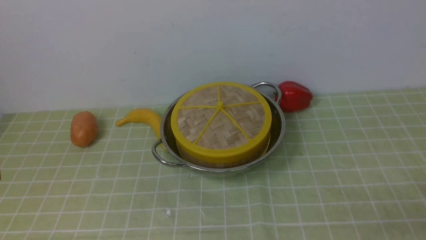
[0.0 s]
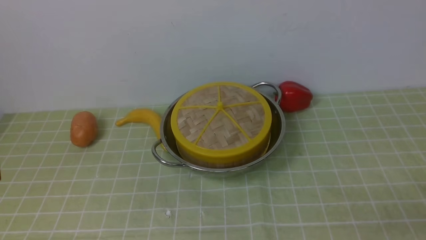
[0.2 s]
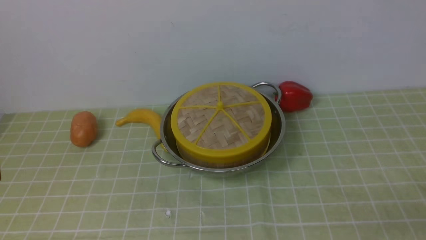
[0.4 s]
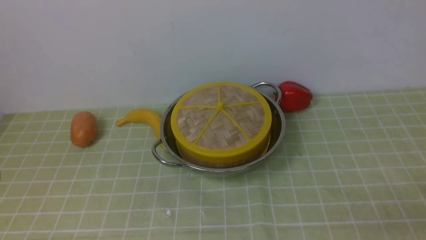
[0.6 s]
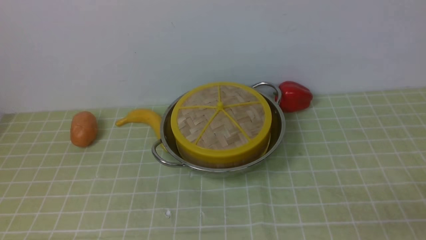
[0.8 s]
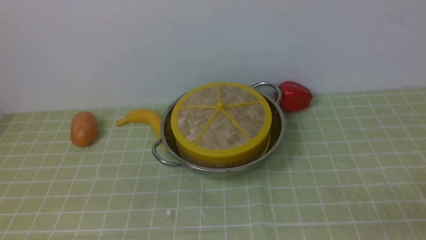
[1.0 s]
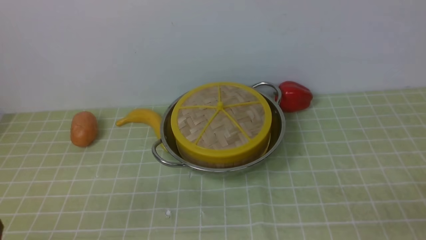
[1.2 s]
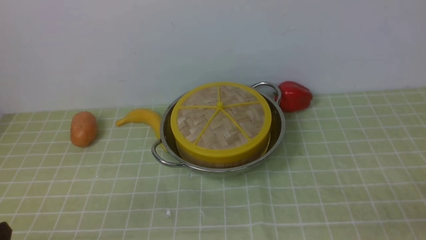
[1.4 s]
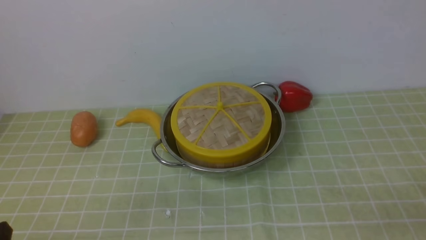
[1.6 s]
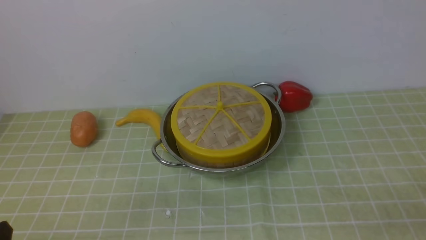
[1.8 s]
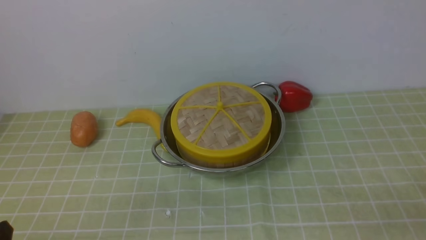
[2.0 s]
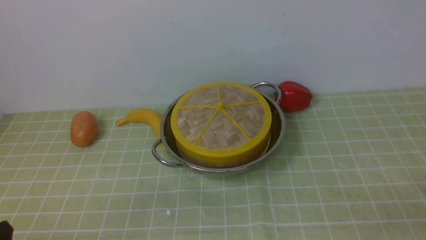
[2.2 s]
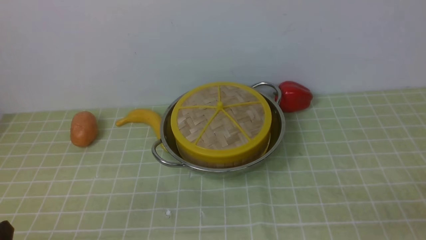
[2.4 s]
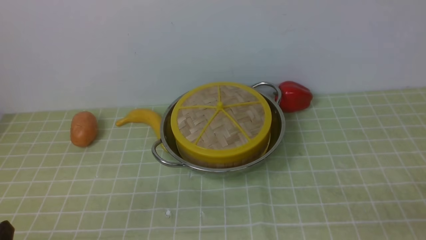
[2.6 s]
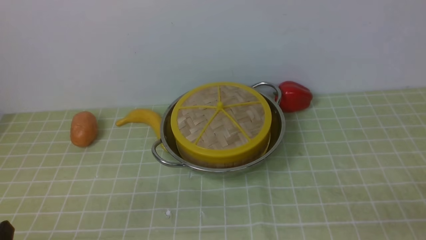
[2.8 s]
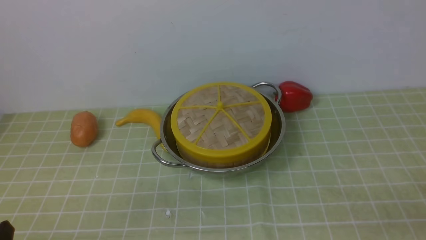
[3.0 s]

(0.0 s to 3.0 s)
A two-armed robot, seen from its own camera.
Task of the whole recording: place the steamer in the pot on the green tablecloth, and put the lid on the steamer.
1.6 s - 3.0 s: Both grippers stay about where they are.

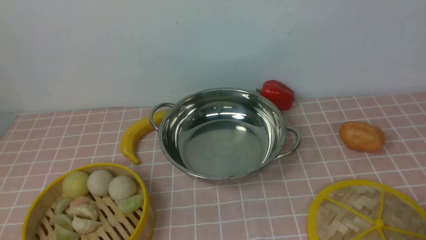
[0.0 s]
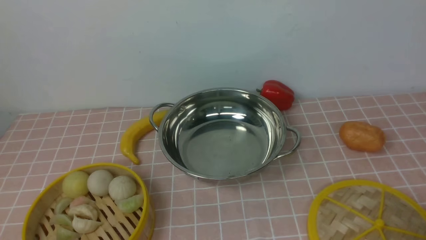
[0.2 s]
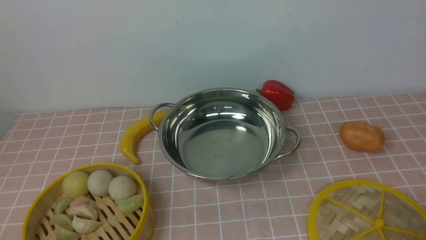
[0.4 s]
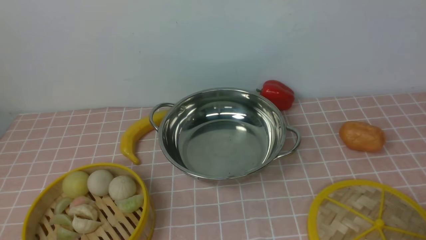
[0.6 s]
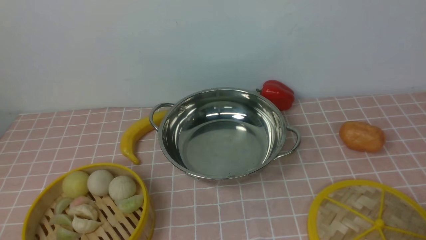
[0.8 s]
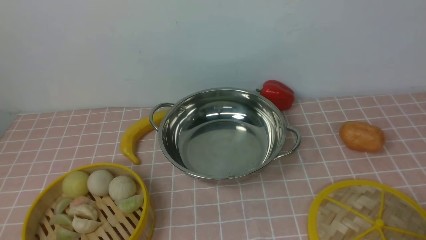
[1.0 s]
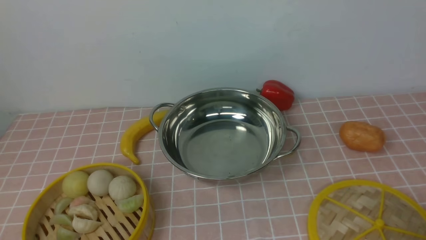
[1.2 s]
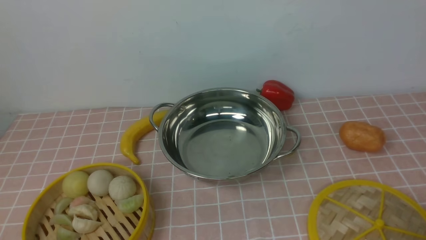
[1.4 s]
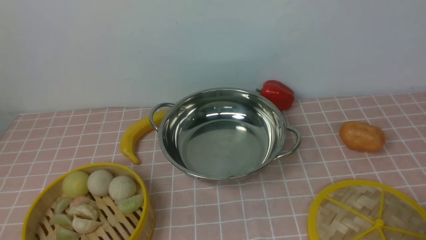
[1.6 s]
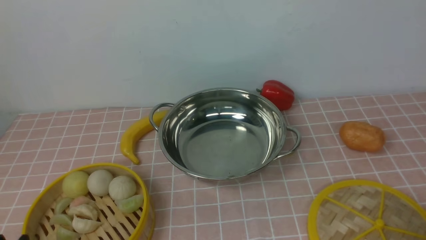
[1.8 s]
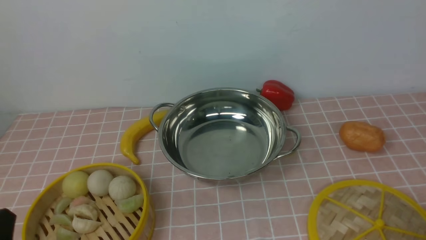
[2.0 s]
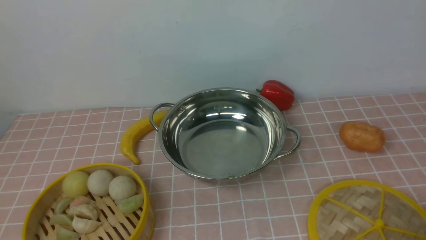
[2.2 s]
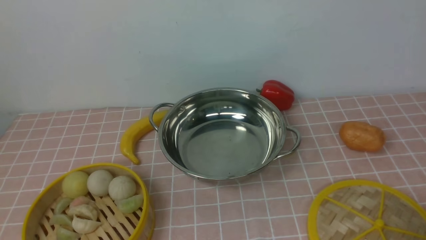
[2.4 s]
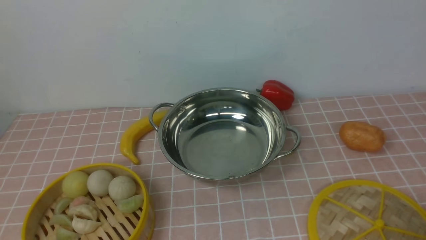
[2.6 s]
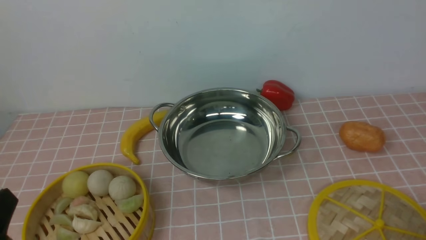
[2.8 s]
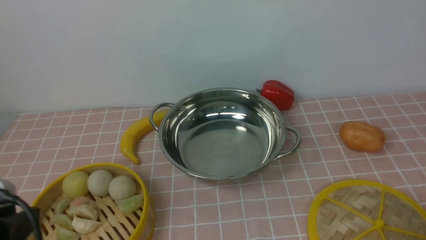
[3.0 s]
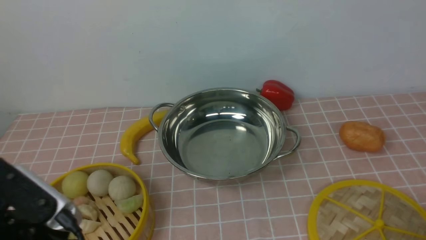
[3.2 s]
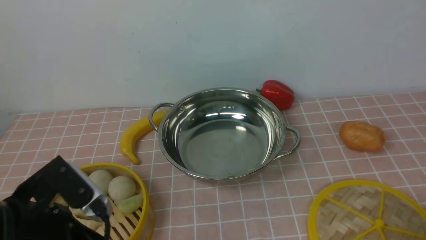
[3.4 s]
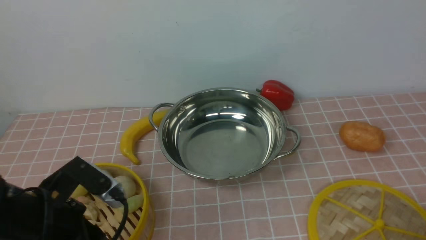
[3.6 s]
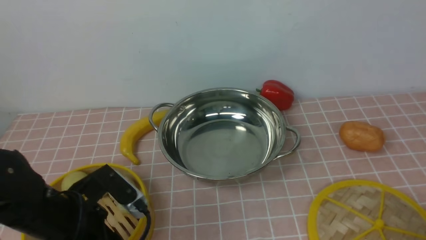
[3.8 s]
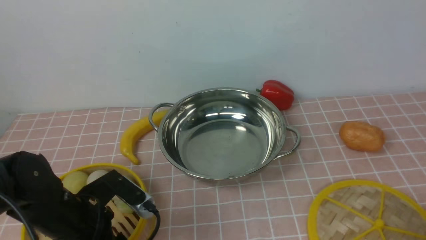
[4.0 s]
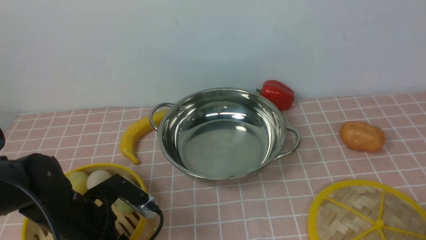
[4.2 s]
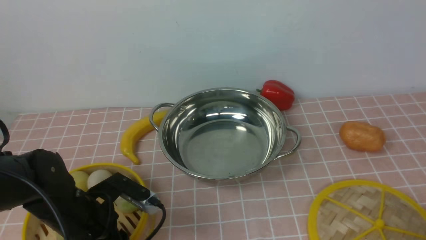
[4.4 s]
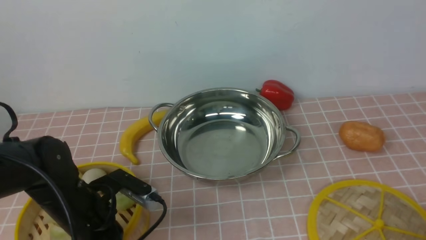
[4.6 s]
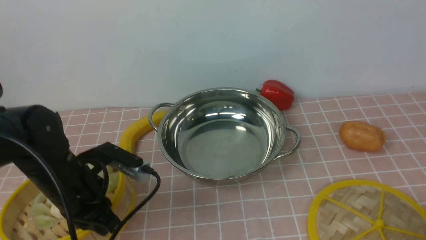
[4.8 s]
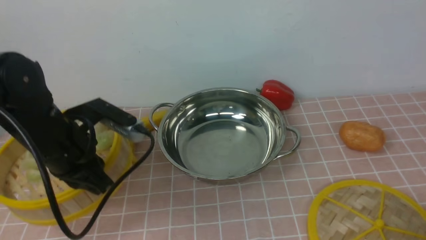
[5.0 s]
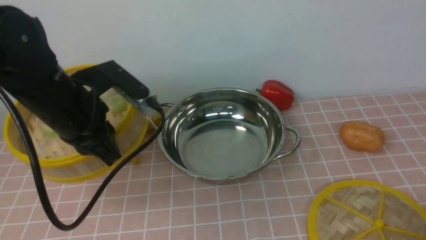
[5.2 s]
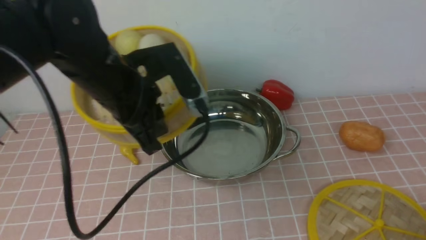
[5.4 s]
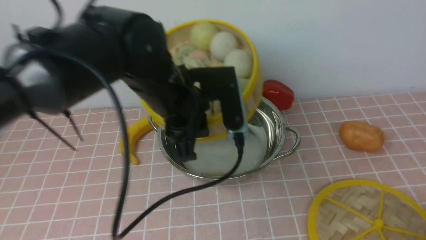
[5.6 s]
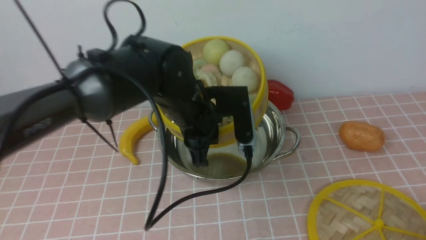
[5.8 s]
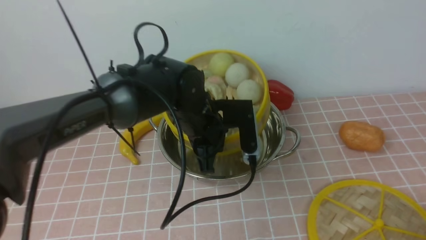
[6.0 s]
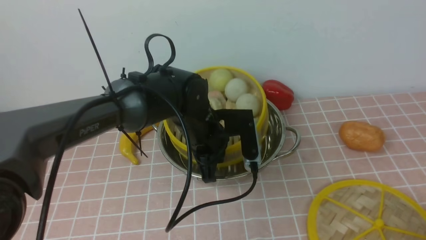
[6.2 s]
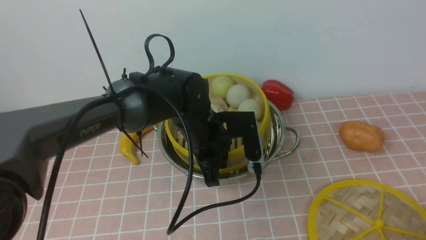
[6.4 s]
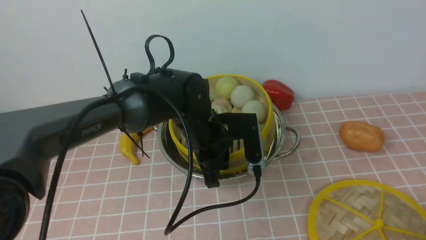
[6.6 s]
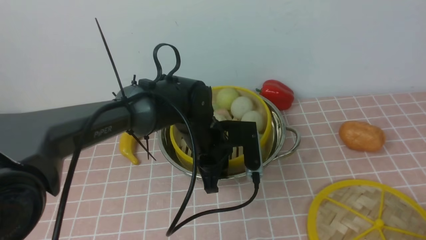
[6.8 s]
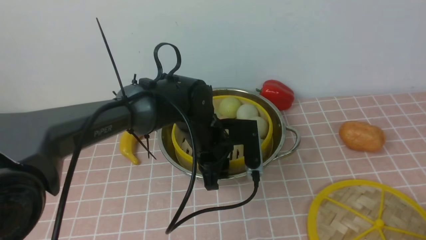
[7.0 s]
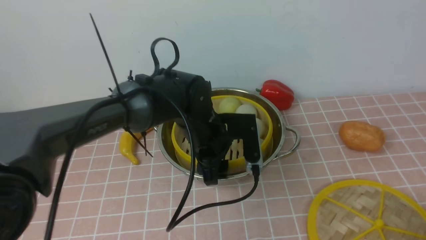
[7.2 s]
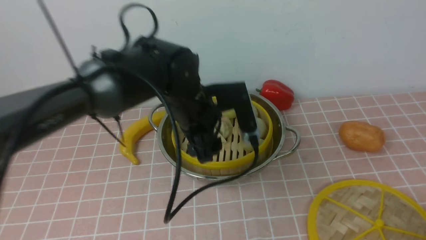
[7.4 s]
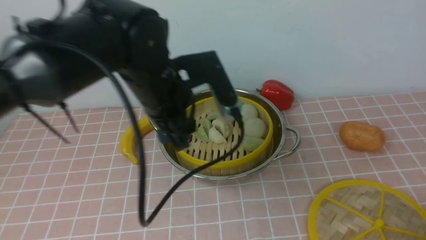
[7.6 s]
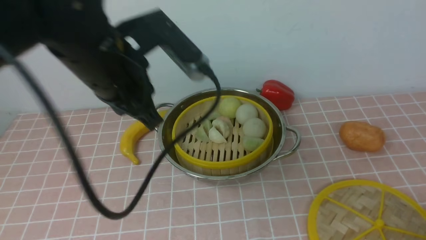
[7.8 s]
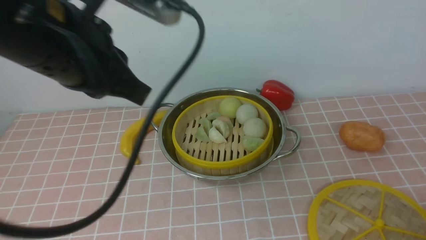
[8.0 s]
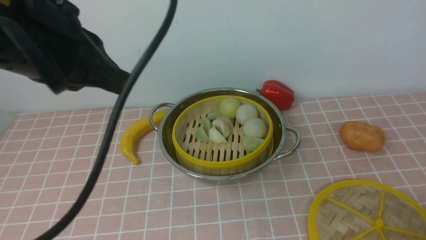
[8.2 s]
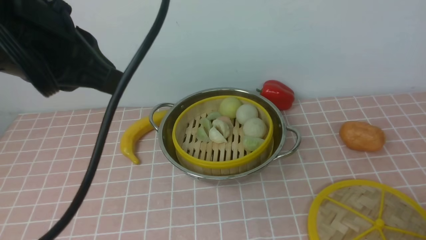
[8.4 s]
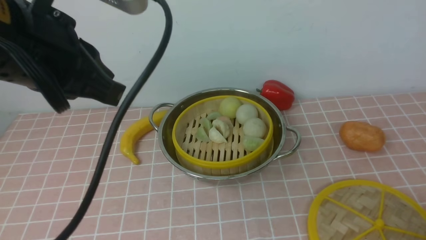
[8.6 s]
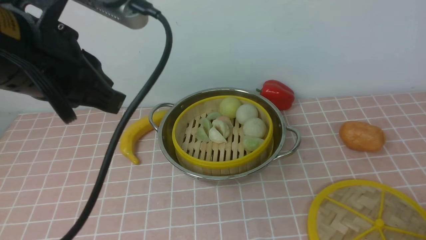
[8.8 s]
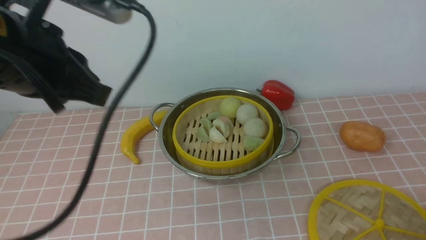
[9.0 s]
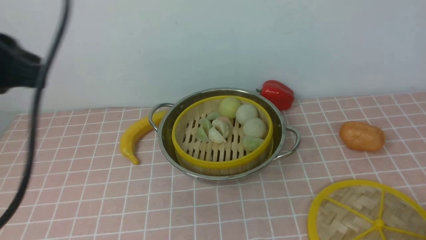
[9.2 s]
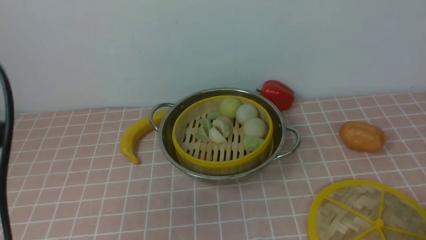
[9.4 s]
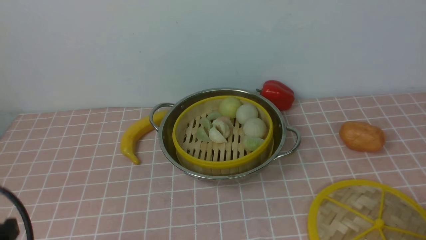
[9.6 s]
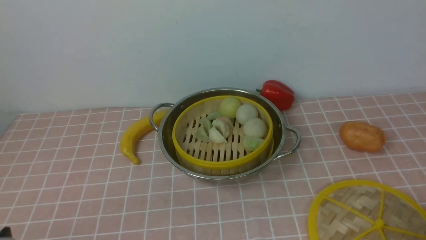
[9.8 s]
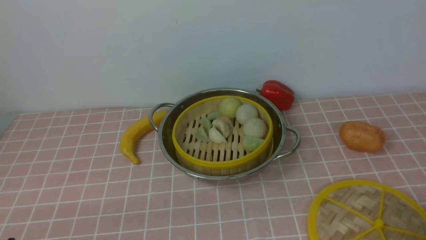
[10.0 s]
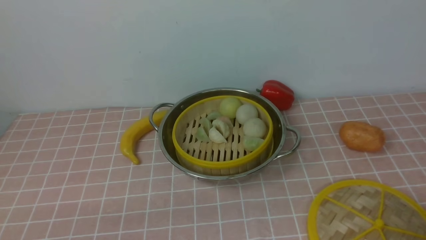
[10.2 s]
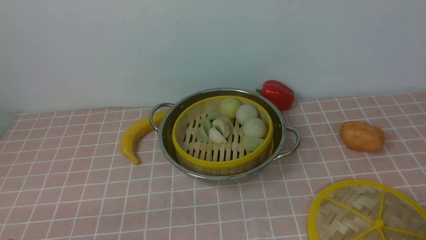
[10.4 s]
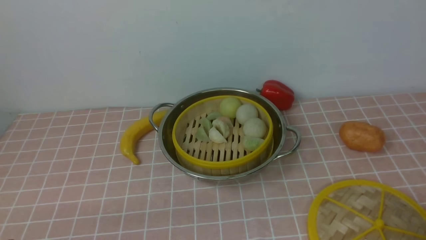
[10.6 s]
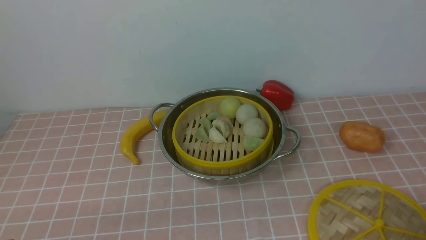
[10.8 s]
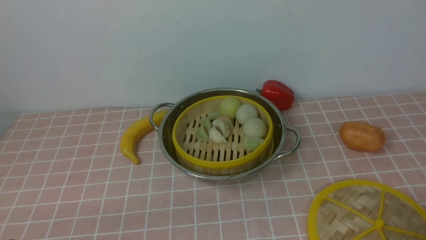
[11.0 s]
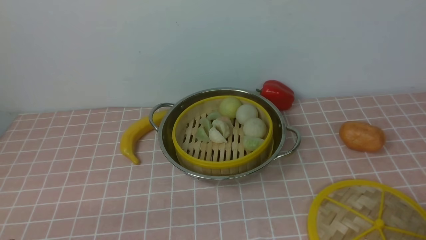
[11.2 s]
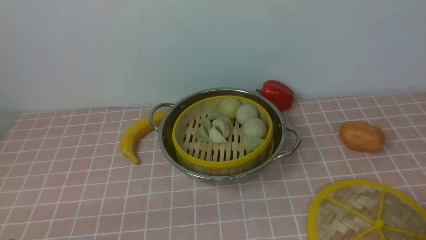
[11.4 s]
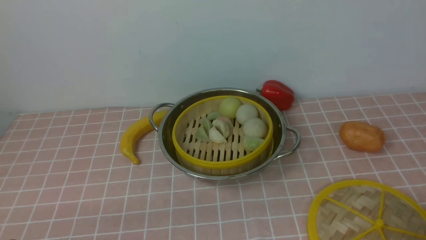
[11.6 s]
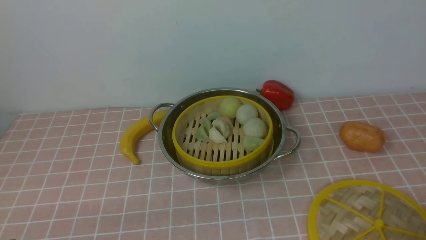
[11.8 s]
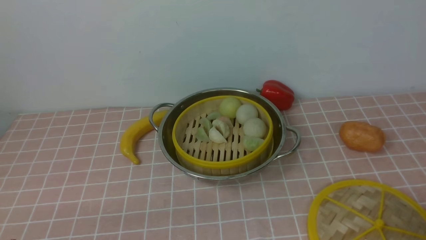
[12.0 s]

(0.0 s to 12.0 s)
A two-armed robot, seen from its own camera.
Task of the whole recording: place the steamer in the pot on the pink tablecloth, and put the lid on the steamer.
Step, 0.0 s - 4.6 s: use the left arm to lift the steamer closest to it.
Step, 4.8 s - 7.2 s: use the left arm to put the steamer into the iron steamer pot in the middle.
0.0 s - 1.6 s: The two grippers keep their place.
1.6 s - 3.0 s: The left gripper moves upward, about 10 cm.
3.0 s - 4.4 s: The left gripper is displaced forward and downward by approximately 20 cm, and opens, then closes again.
4.4 s - 6.0 s: The left gripper goes roughly 20 cm to the right and forward, and closes its fingers.
6.0 s - 7.6 s: The left gripper shifts approximately 10 cm upward, and opens up.
7.6 s - 9.0 s: The left gripper moves to the left, backward and upward, about 20 cm, and closes its fingers.
9.0 s - 10.4 s: The left gripper is displaced downward and backward by some 30 cm.

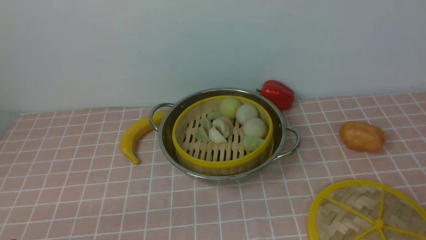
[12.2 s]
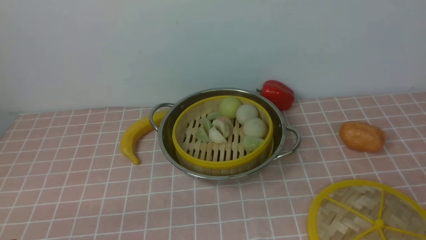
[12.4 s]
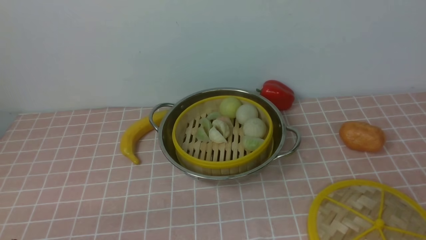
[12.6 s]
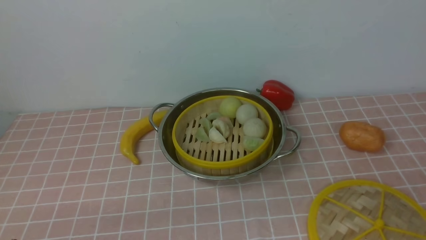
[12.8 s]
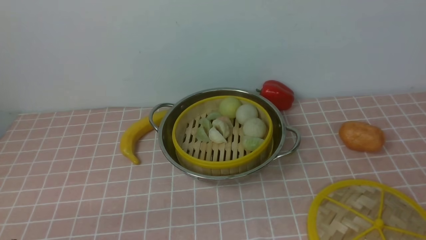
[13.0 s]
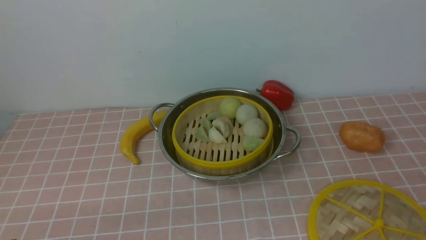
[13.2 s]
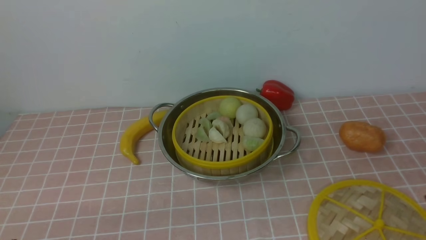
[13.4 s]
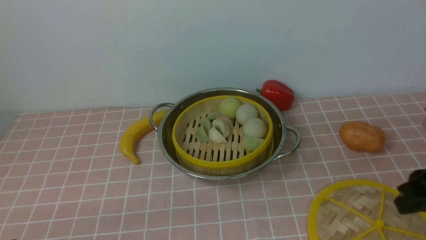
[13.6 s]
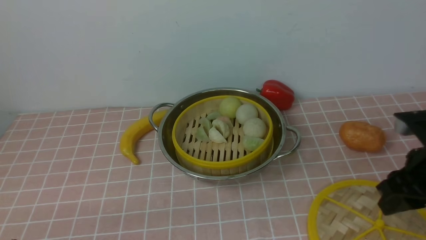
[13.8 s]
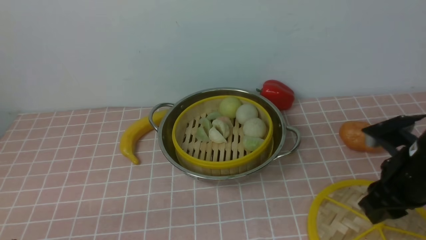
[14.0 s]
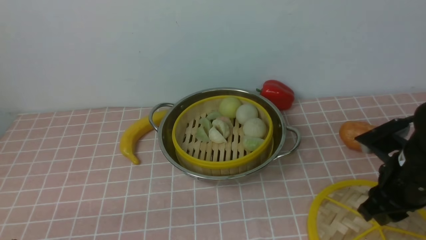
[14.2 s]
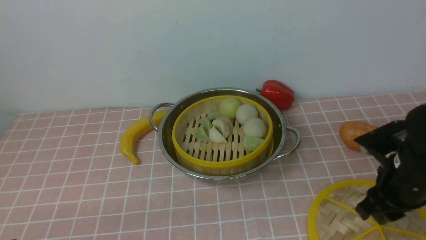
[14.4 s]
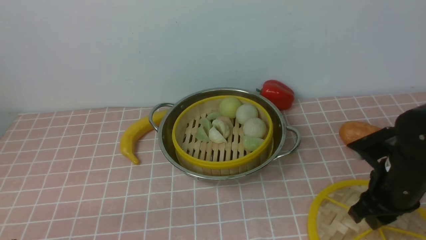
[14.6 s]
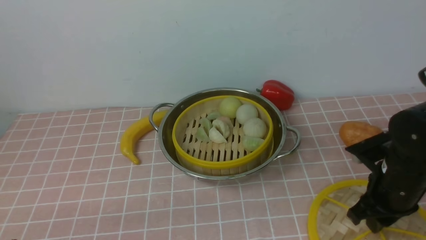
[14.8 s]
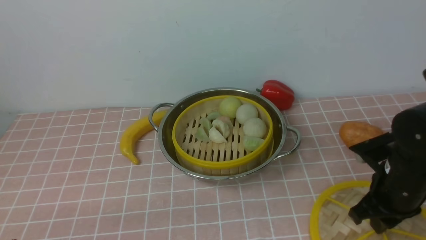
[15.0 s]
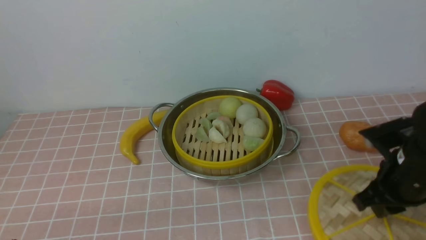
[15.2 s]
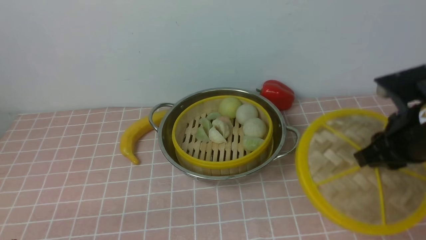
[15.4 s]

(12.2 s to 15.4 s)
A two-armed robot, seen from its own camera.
Task of the whole recording: place the steamer in the pot on the pink tablecloth, and put the lid on the steamer.
Step, 12.2 s - 15.0 s: use the right arm to lift the lid of the steamer.
12.2 s - 13.8 s: The right gripper is displaced forward by approximately 20 cm.
13.8 s - 15.4 s: The right gripper moves about 5 cm, and closes up.
